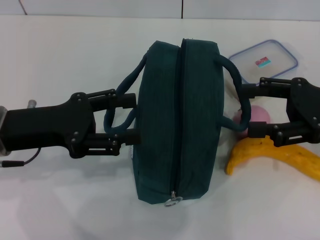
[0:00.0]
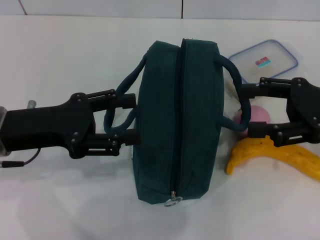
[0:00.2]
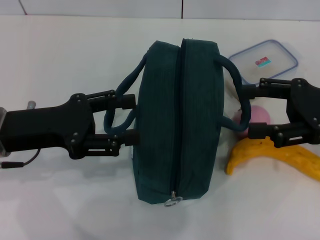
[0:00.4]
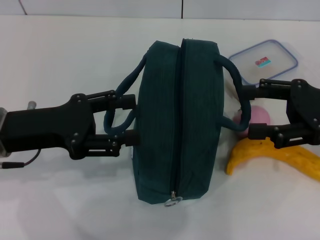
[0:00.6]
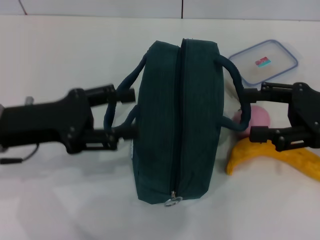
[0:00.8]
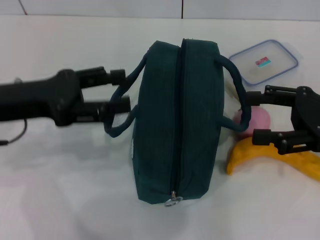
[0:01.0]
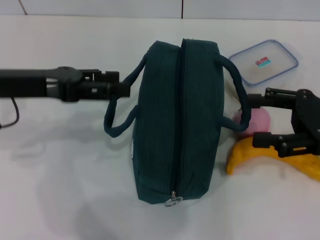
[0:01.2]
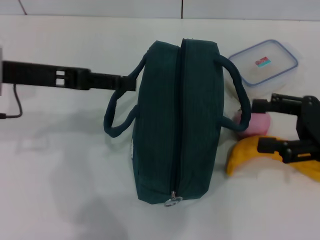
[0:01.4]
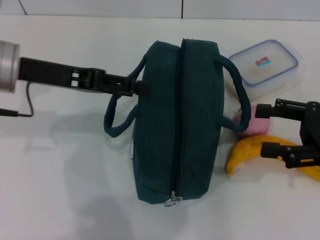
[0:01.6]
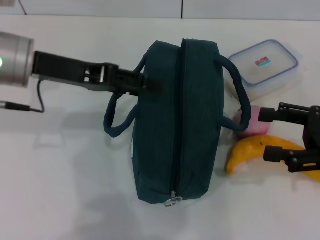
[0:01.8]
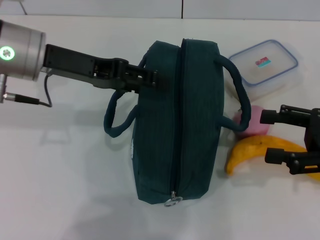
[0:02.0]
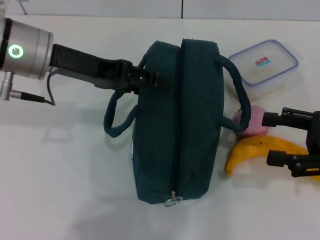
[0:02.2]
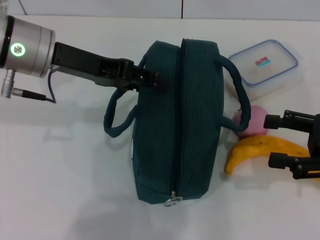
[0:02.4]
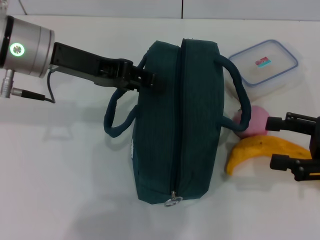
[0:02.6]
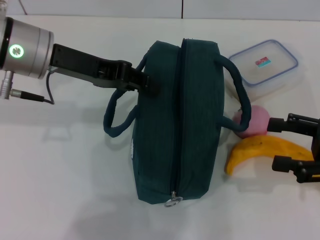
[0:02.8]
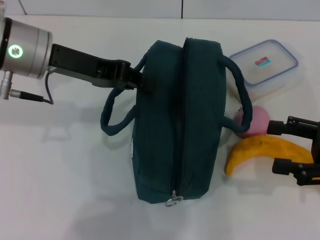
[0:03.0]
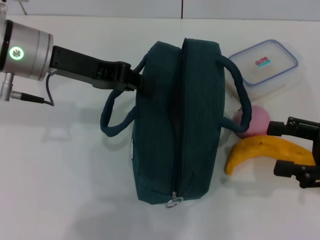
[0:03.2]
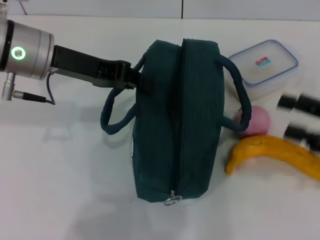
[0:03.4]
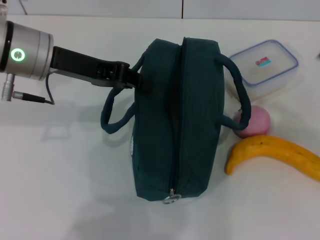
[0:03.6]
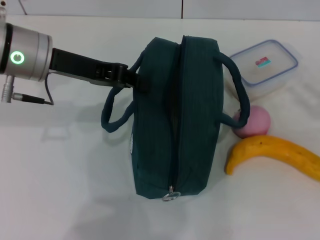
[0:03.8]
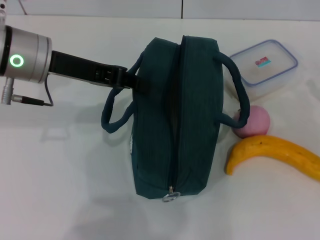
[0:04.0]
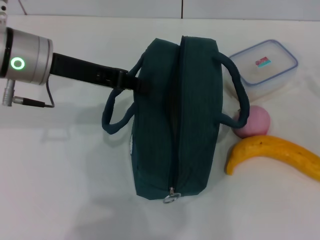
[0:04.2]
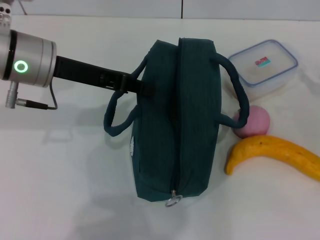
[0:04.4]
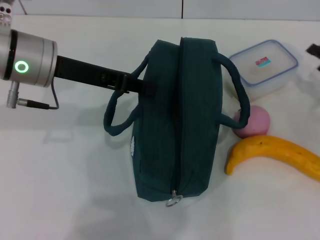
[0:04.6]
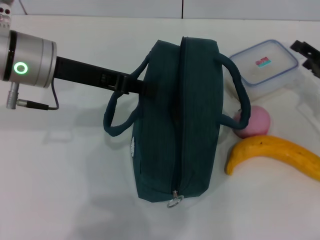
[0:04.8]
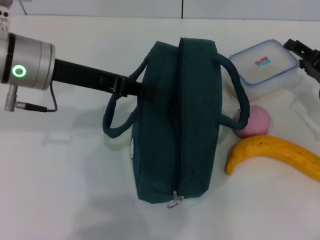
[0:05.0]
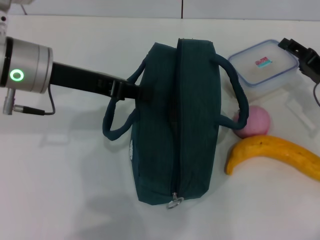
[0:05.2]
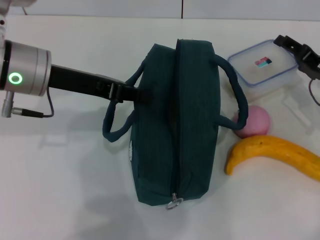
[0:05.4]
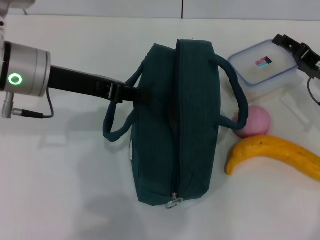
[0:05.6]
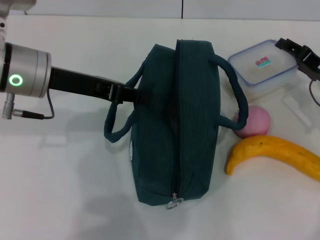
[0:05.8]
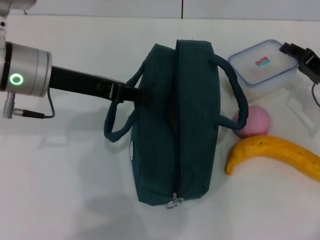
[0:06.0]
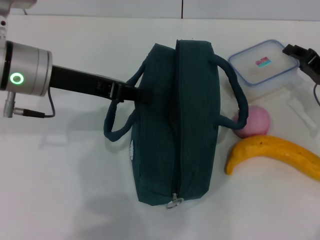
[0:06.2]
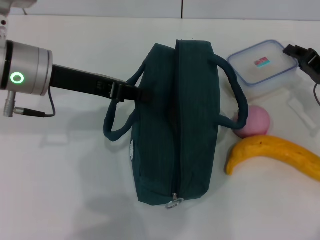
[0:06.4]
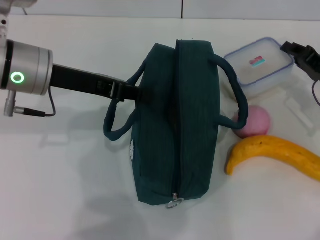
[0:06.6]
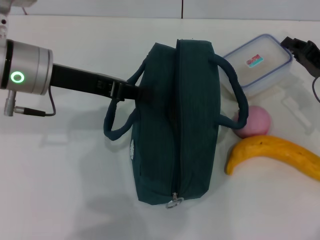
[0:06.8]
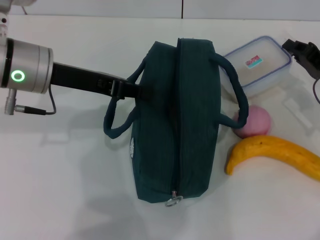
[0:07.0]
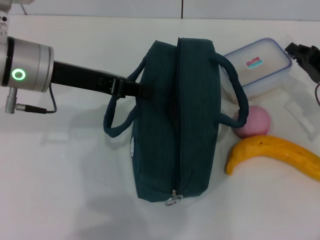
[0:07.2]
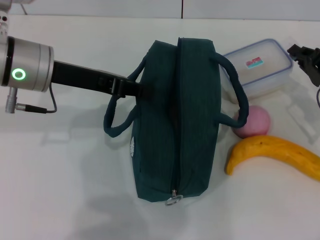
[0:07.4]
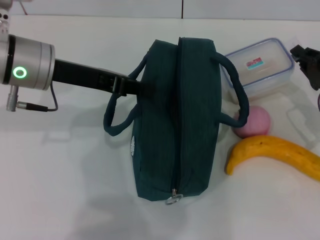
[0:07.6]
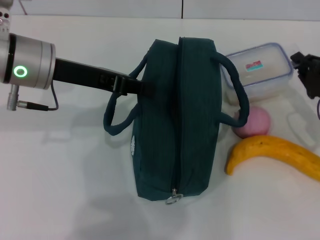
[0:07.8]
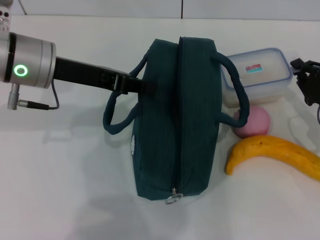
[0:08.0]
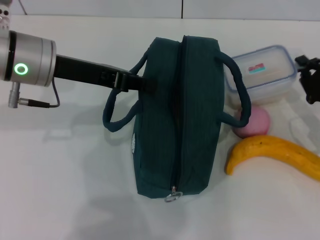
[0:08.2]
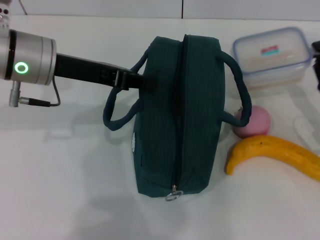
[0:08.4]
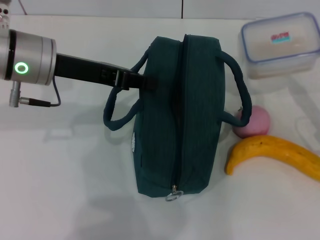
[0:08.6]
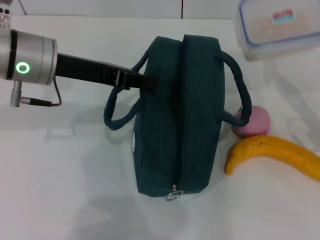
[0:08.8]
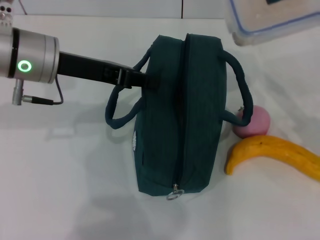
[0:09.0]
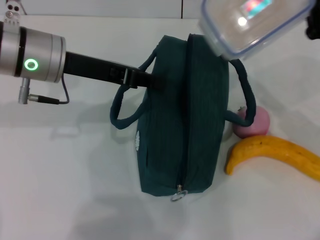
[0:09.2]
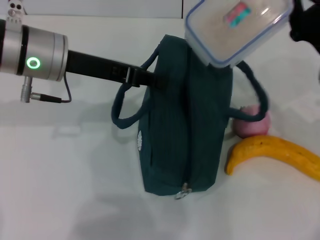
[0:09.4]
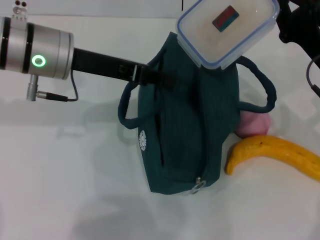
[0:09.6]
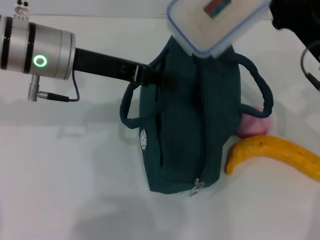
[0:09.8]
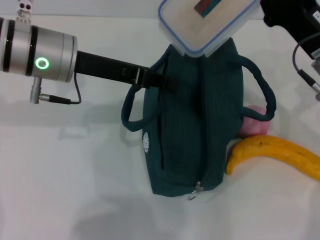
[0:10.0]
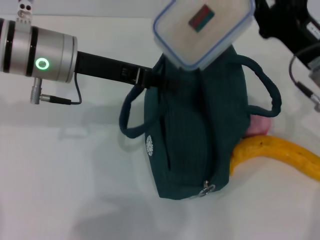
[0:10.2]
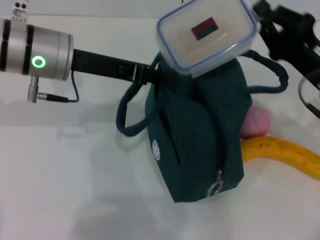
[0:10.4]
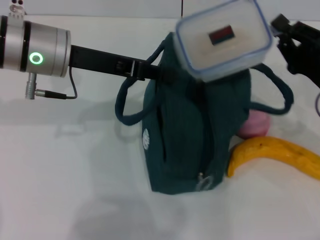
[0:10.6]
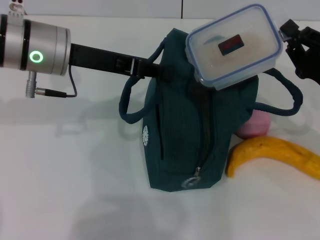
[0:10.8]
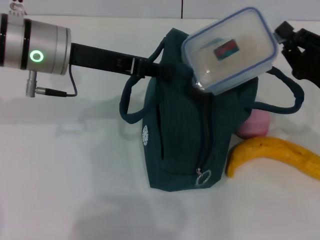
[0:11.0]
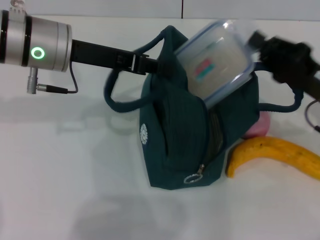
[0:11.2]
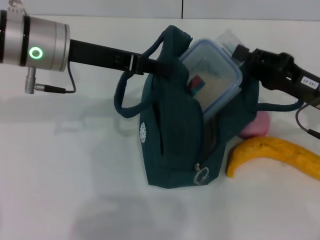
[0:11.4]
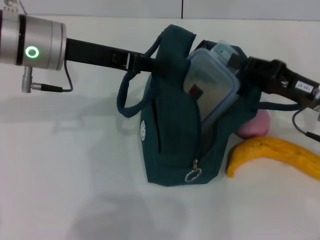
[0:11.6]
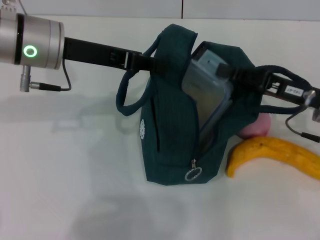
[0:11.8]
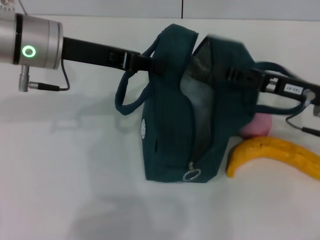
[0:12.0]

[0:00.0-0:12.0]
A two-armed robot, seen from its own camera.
Step, 0:00.0 to 0:03.2: Hold the lunch bag with your left hand.
Step, 0:03.4 to 0:07.2: Pick up the lunch box with your right hand.
Step, 0:07.4 to 0:11.8: Place the lunch box into the lunch bag with your right hand.
0:00.0 to 0:01.6: The left gripper heads upward and forward, covering approximately 10 cm.
0:01.6 to 0:03.0: The left gripper closes up.
0:03.0 to 0:04.4: The right gripper heads forward and to the right, covering some 10 cm; the left gripper closes its fingers.
0:04.4 to 0:06.0: The right gripper shifts some 5 cm to the left.
0:06.0 to 0:07.6: The right gripper closes its fingers.
0:07.6 to 0:09.0: The right gripper is displaced upward by some 5 cm.

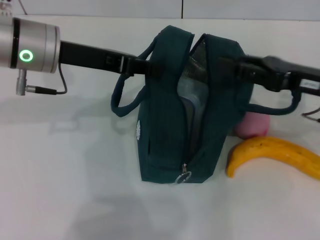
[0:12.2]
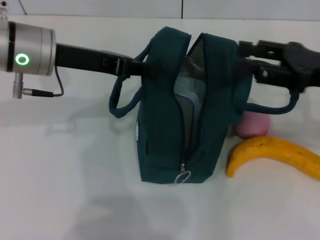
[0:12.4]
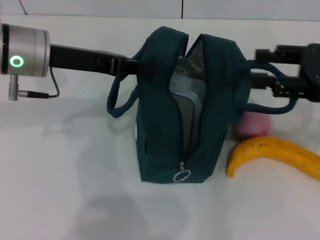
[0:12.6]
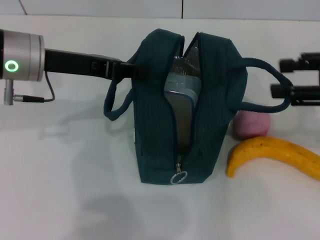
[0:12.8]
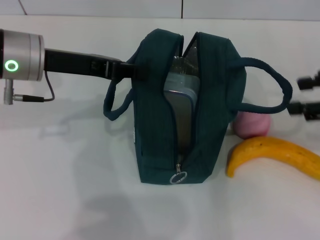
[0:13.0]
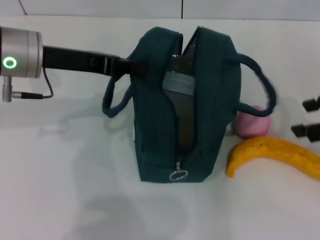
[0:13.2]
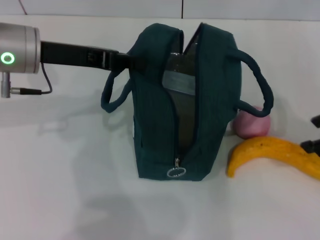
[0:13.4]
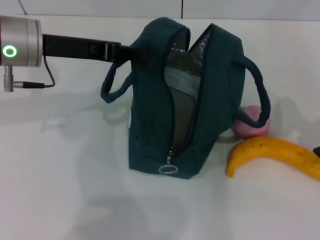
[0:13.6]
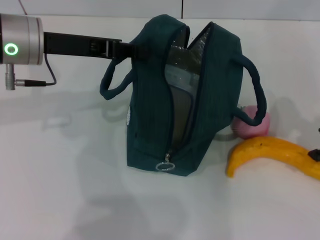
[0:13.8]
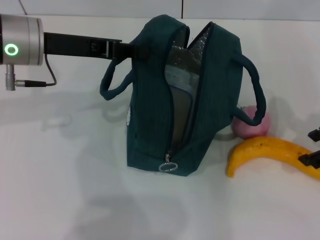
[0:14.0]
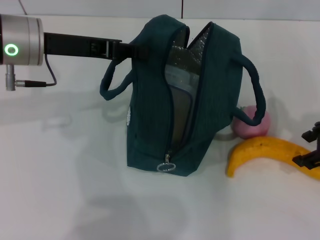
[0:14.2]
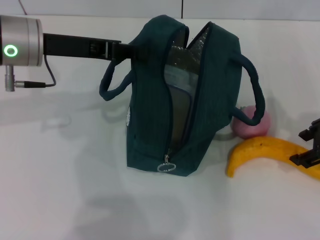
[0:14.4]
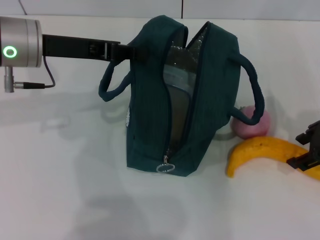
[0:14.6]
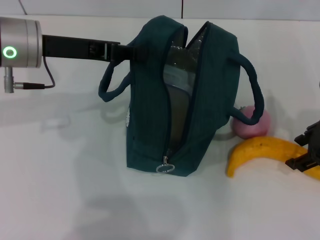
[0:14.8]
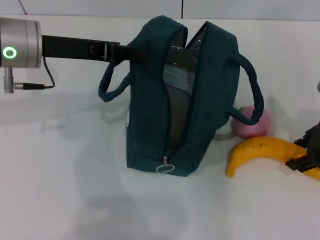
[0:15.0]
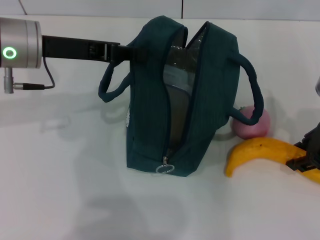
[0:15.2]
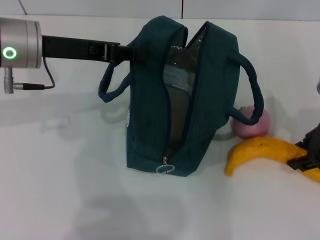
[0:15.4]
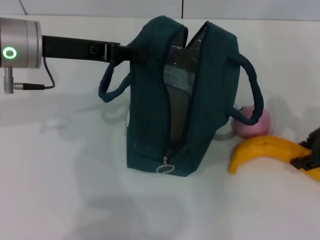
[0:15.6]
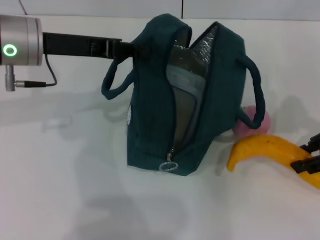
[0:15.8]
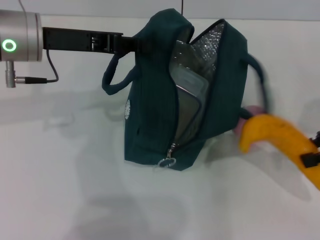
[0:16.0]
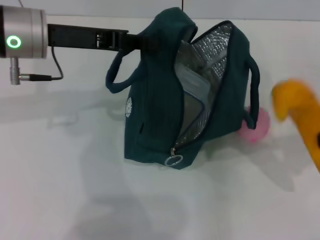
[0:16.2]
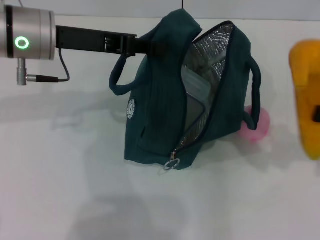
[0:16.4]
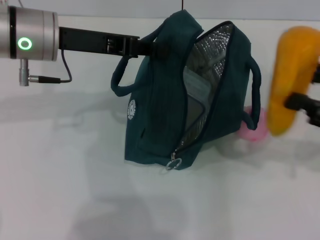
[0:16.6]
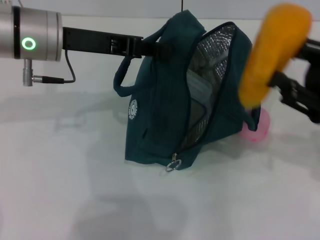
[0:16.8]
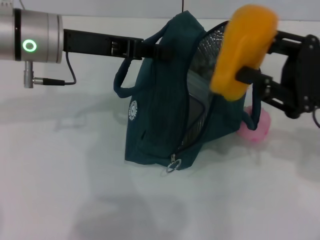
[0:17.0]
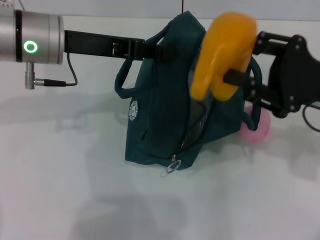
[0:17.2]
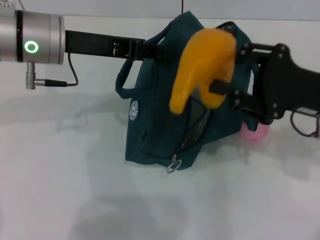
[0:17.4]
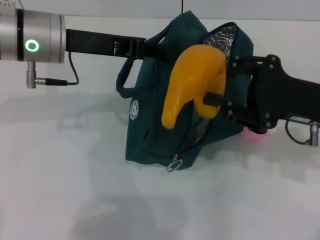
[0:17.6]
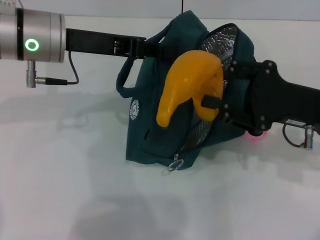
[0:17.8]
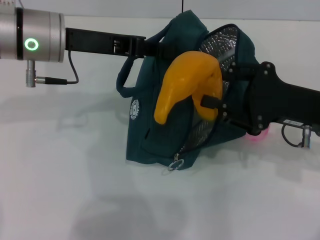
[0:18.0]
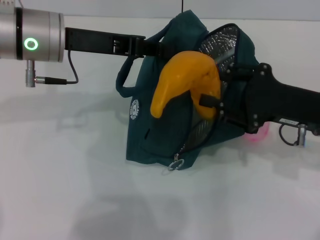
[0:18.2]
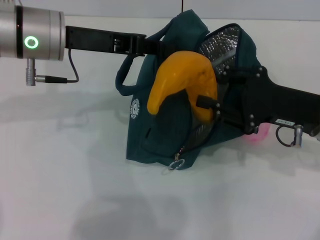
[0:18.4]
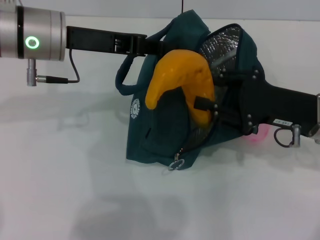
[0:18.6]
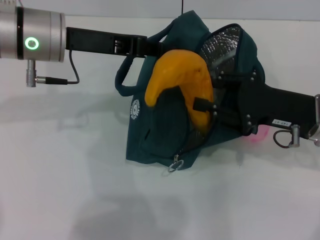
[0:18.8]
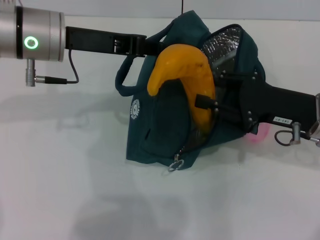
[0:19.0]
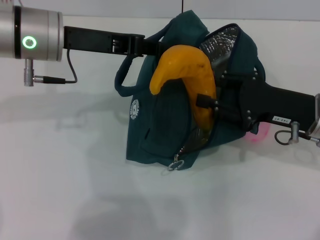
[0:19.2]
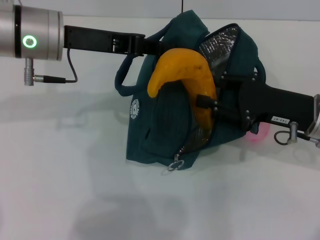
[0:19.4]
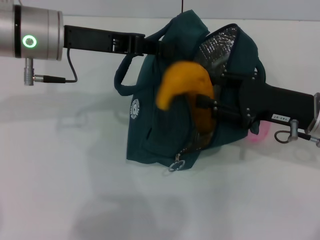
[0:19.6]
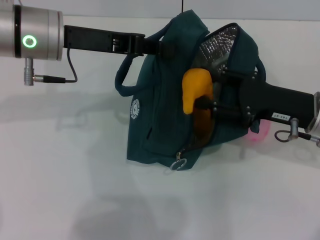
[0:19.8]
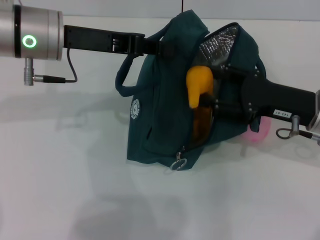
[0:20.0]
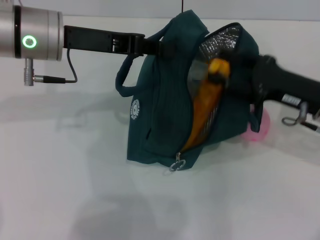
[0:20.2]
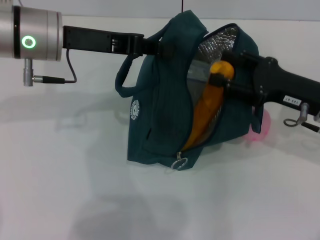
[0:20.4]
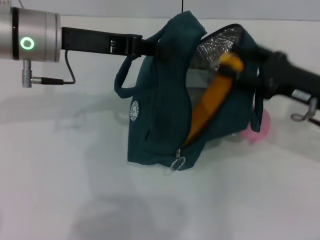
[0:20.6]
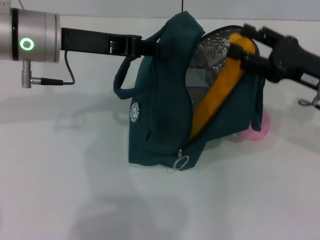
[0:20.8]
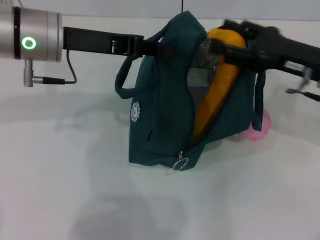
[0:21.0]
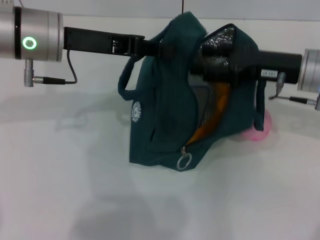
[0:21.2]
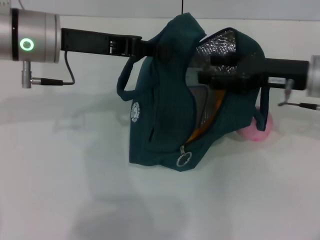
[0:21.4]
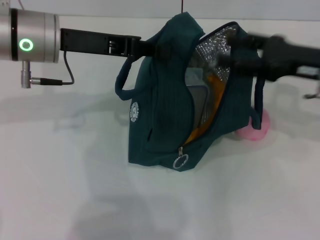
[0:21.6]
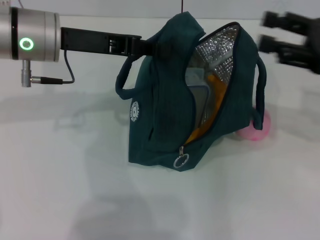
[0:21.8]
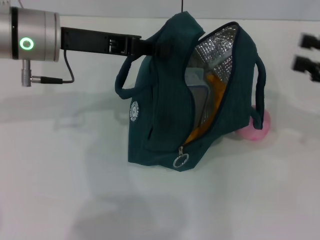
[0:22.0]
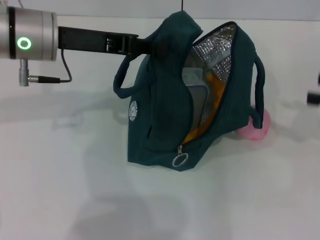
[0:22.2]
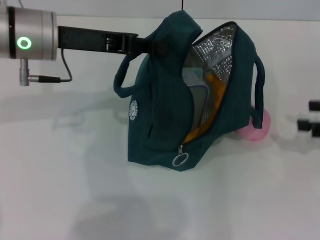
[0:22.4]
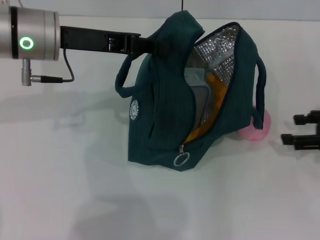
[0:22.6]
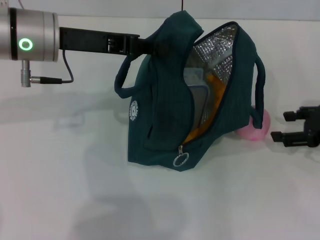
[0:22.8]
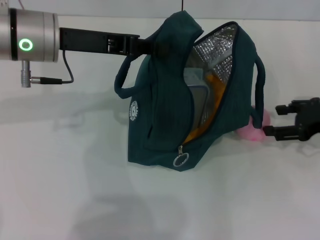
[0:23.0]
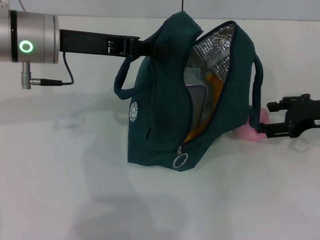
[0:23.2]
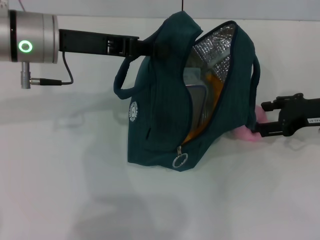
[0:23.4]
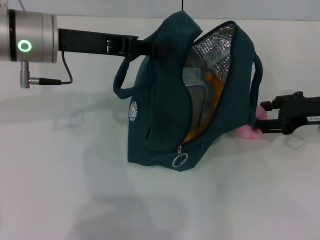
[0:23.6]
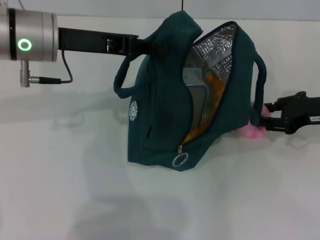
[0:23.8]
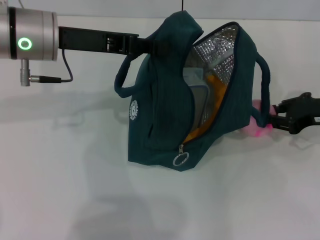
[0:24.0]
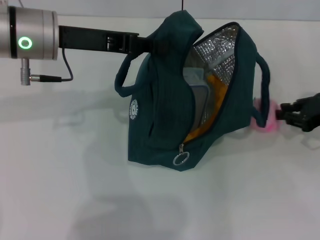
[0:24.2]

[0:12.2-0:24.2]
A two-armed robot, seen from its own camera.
Step, 0:12.2 to 0:15.2: Take the banana with your right hand.
Step, 0:15.4 to 0:21.2: Put the banana into the lunch bag with your right hand.
0:12.2 to 0:13.8: The right gripper is displaced upward by some 5 cm, and opens.
0:13.8 to 0:15.2: The right gripper moves some 5 cm.
0:15.2 to 0:16.6: The right gripper travels backward by roughly 5 cm.
0:16.6 to 0:18.2: The right gripper shifts approximately 10 cm to the left.
0:18.2 to 0:19.8: There are only small adjustments of the grippers.
0:19.8 to 0:21.2: The right gripper is displaced forward by some 5 cm.
0:21.2 to 0:22.6: The right gripper goes about 15 cm to the right and backward.
0:22.6 to 0:24.2: The right gripper closes up.
